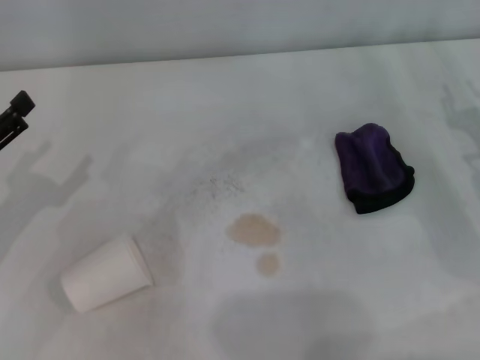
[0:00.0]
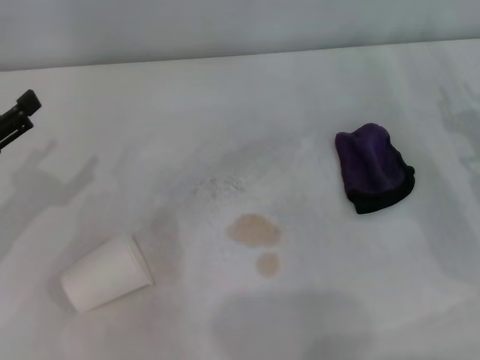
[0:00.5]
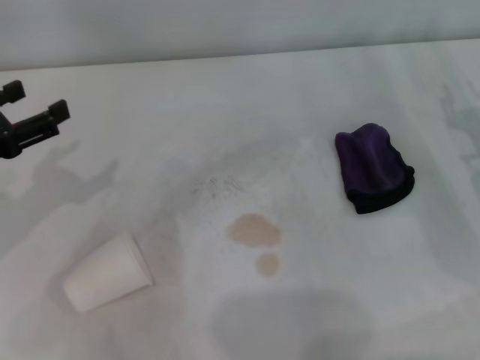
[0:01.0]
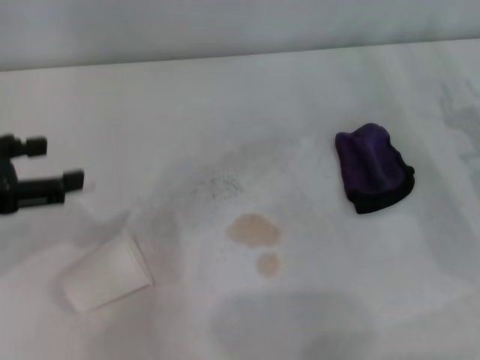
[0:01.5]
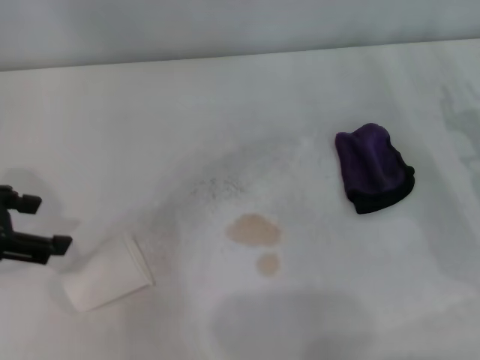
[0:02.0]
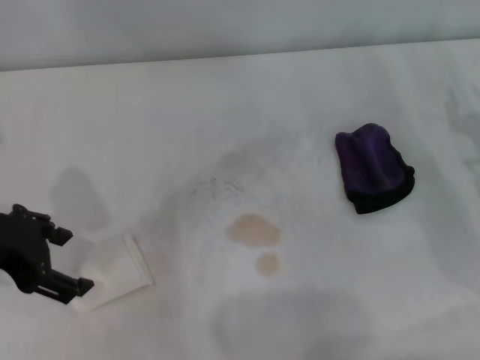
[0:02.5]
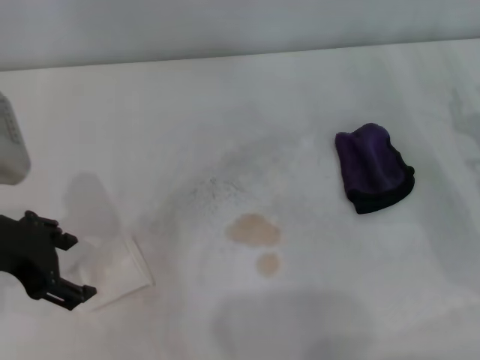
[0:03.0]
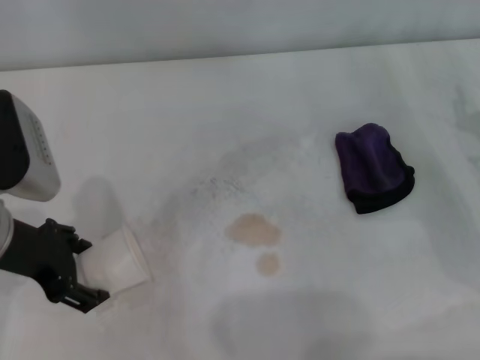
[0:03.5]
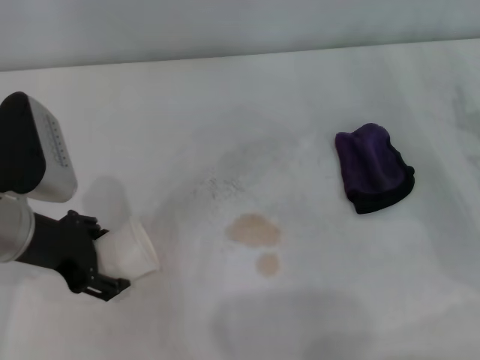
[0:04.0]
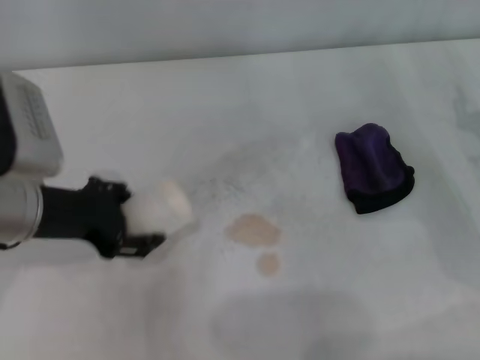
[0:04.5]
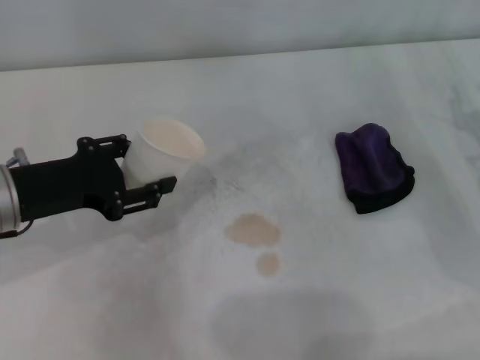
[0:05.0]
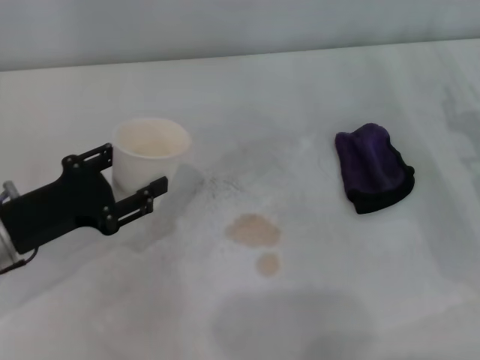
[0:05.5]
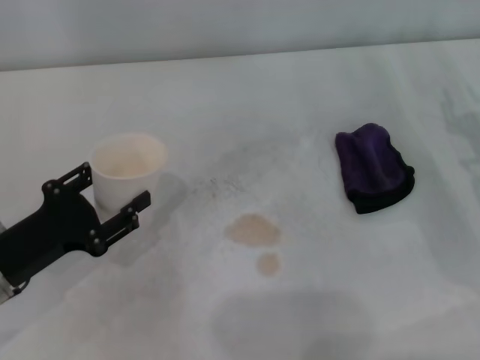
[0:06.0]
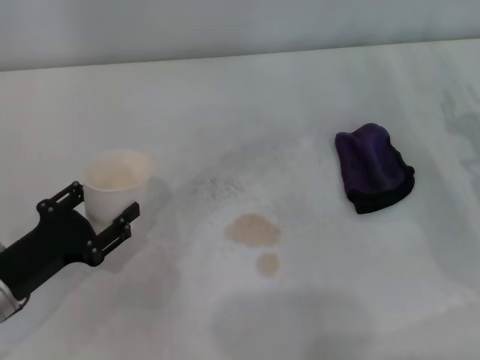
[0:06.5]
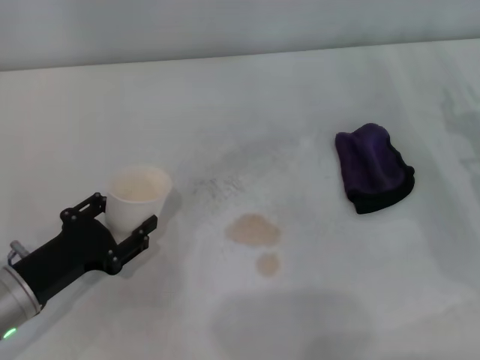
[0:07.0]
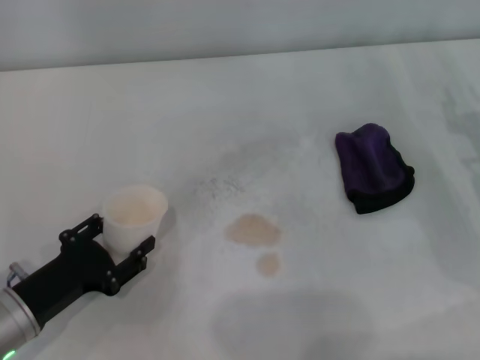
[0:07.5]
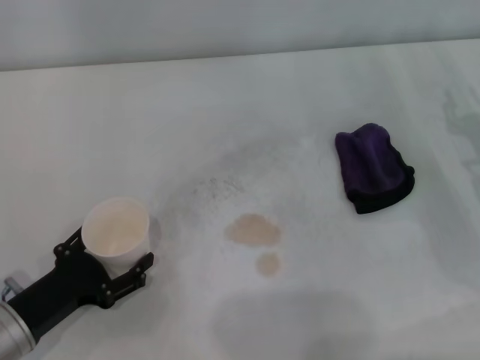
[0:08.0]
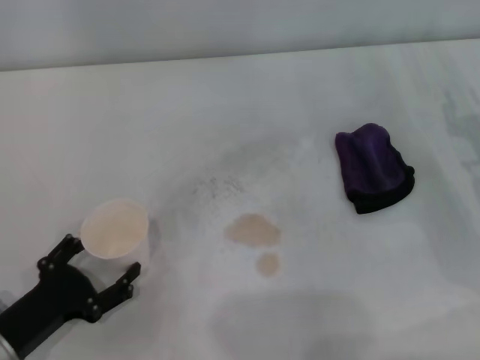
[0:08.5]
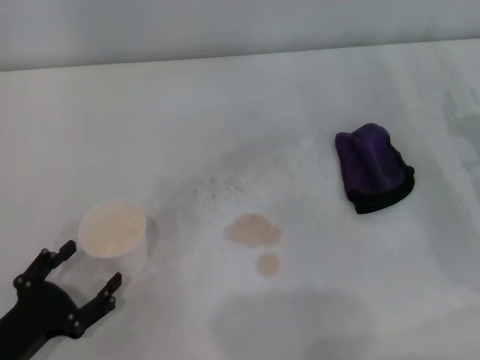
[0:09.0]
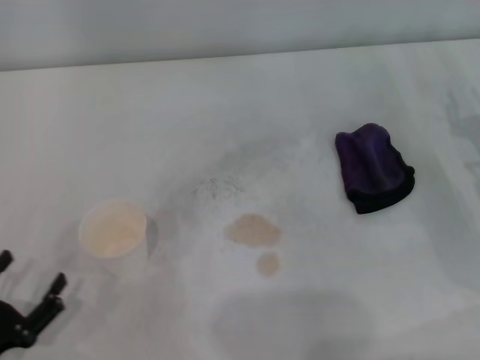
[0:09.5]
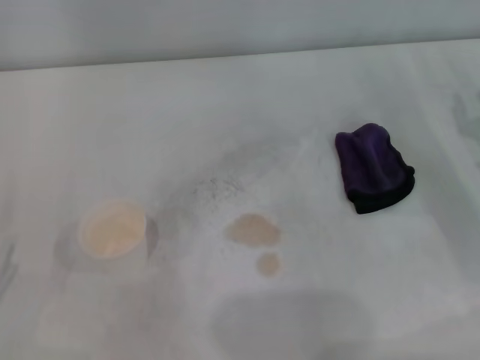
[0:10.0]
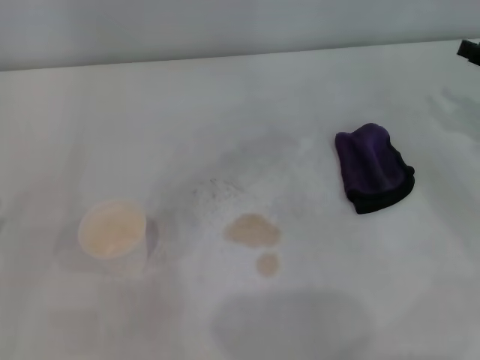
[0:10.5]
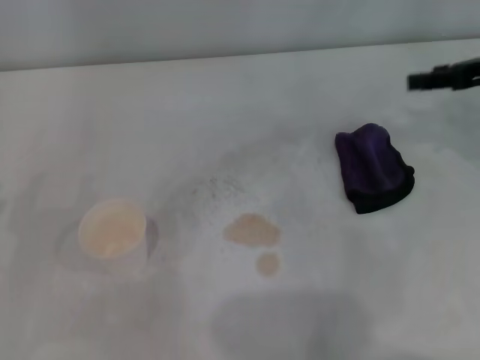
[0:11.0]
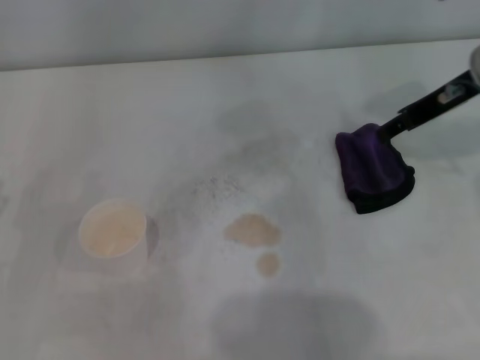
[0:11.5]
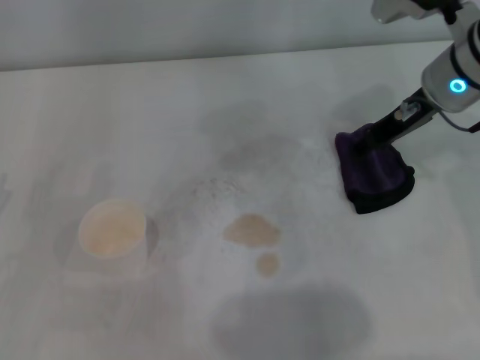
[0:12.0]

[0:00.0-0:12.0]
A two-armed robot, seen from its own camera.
Step, 0:00.0 to 0:04.0: Grasp the paper cup with the left gripper.
Step, 0:04.5 to 0:07.5: Stand the paper cup upright with the left gripper.
0:00.0 to 0:02.0: The left gripper shifts some 10 cm upward.
0:02.0 to 0:04.0: The left gripper travels to the right and downward by approximately 10 cm.
0:04.0 to 0:06.0: The left gripper is displaced downward and backward by approximately 10 cm, and closes up.
0:06.0 to 0:08.0: The left gripper goes some 5 cm downward, and opens.
0:08.0 to 0:10.0: The left gripper heads to the left and backward, covering roughly 10 cm, and opens its fingers.
0:10.0 to 0:12.0: The right gripper travels to the left, upward and forward by some 20 cm, while the left gripper shifts some 5 cm forward.

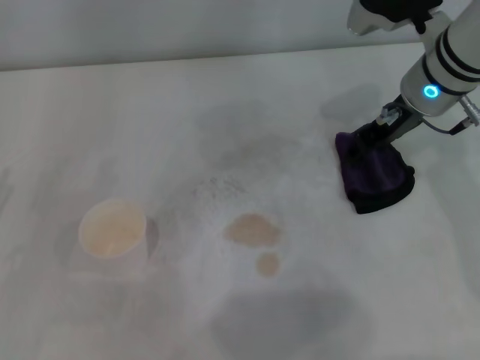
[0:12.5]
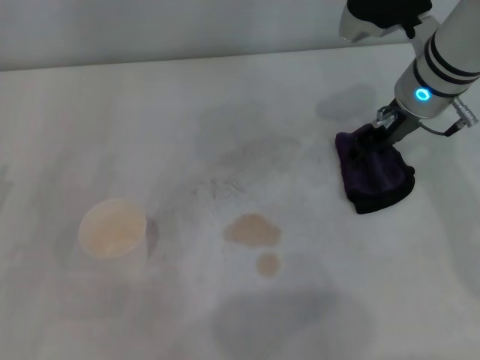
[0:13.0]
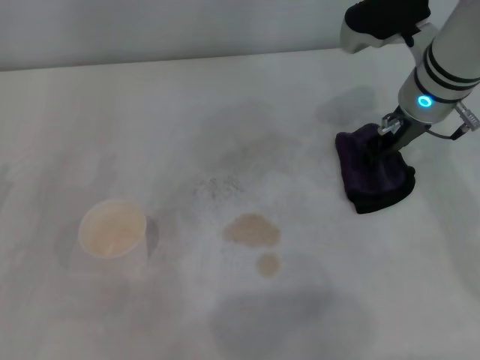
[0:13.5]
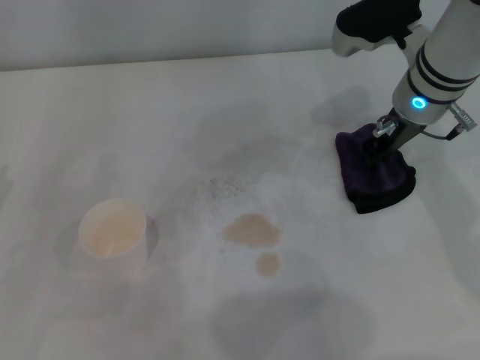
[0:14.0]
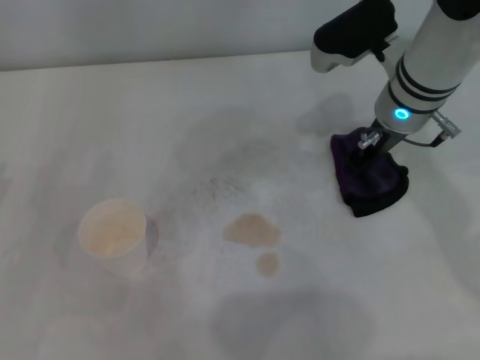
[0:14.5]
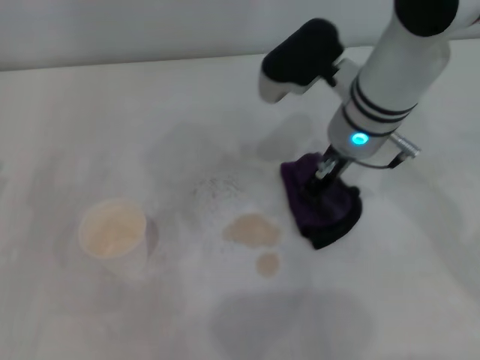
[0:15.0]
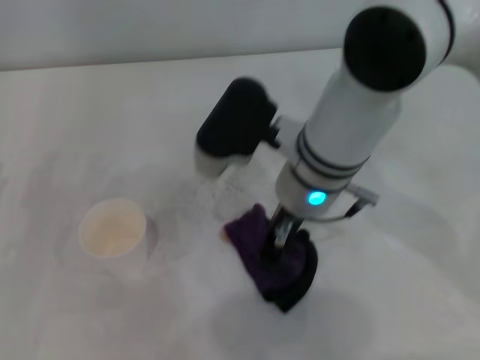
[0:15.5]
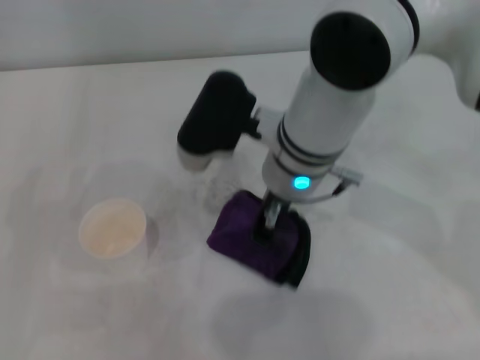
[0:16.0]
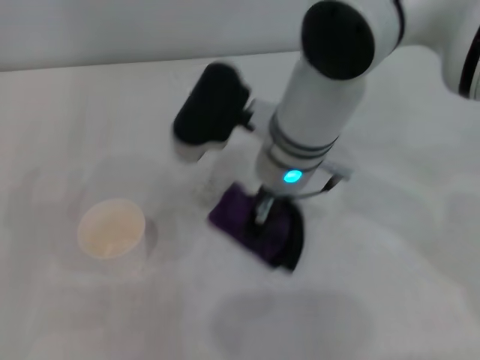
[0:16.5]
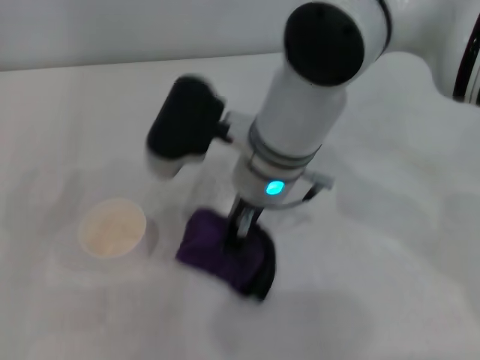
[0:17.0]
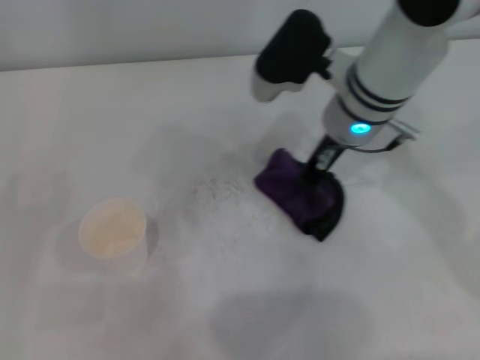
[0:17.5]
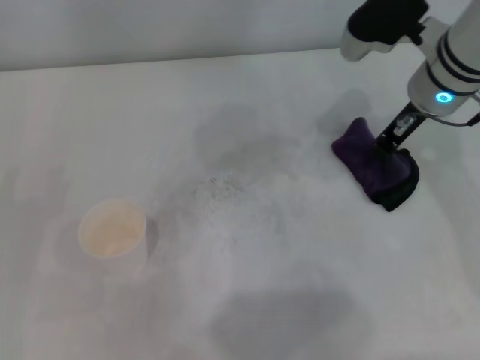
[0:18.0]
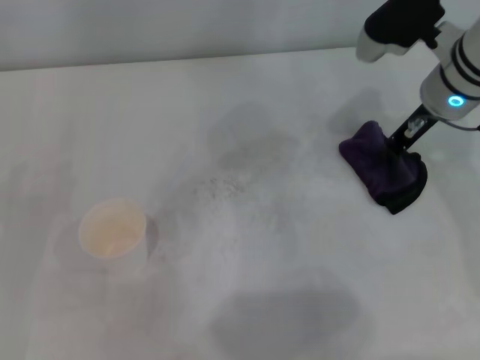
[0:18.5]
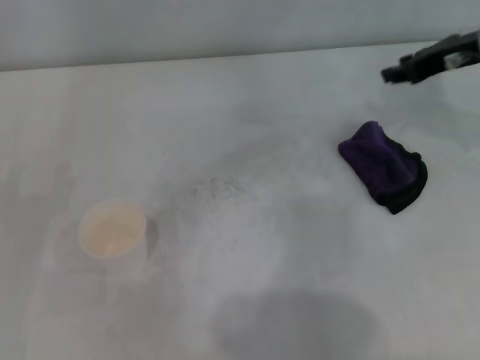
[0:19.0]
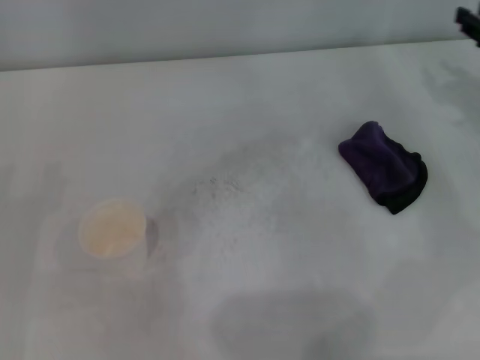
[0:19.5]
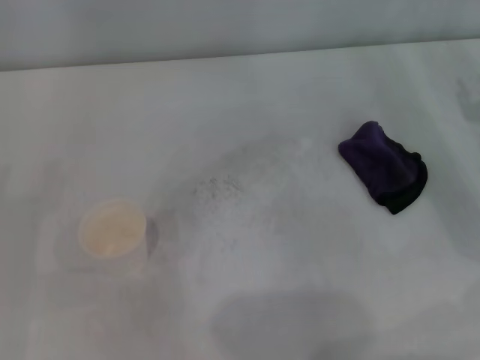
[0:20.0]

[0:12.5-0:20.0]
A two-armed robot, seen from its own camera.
Step, 0:14.5 to 0:17.5: Wipe the stains off the table with the right gripper.
0:12.5 to 0:14.5: The right gripper closes.
0:14.5 to 0:16.5: The right gripper travels to the left and backward by approximately 15 cm.
0:16.5 to 0:18.0: The right gripper moves to the right, roughly 15 cm.
0:18.0 to 0:20.0: The right gripper moves to the right, backward and downward, approximately 20 cm, and opens.

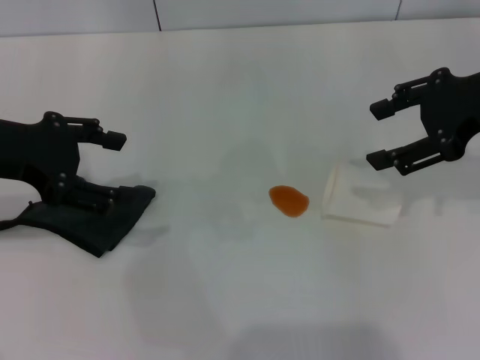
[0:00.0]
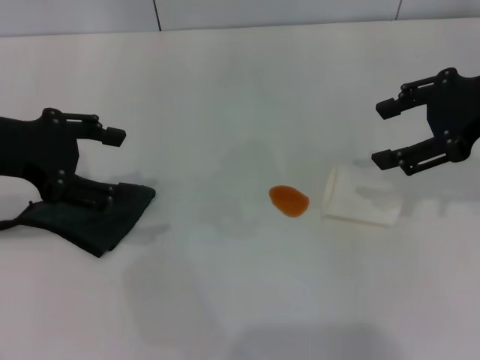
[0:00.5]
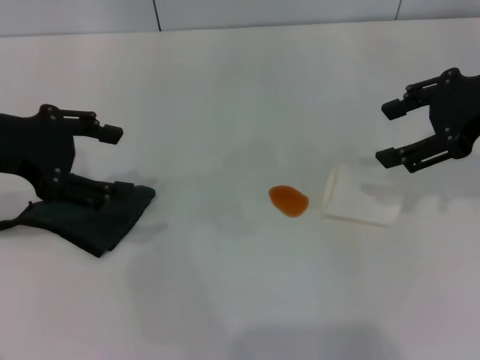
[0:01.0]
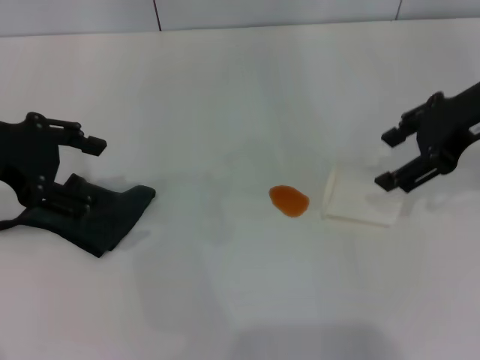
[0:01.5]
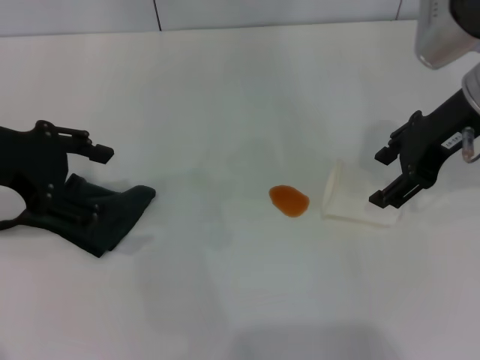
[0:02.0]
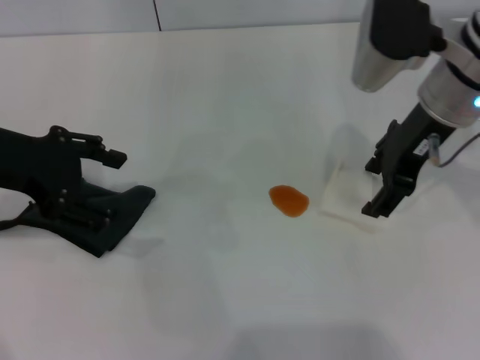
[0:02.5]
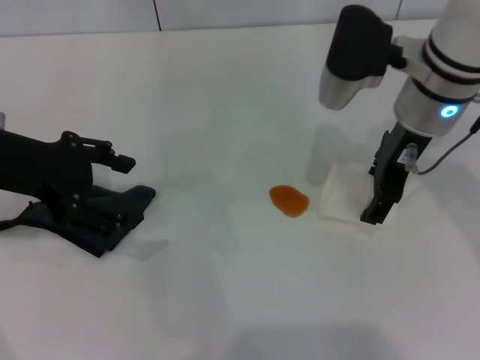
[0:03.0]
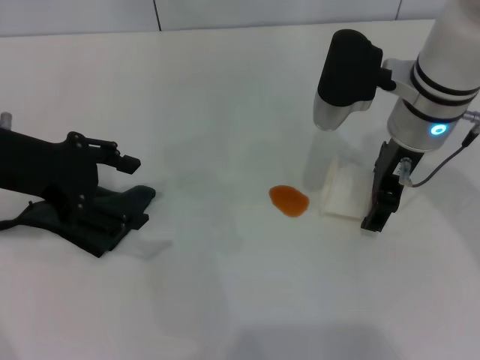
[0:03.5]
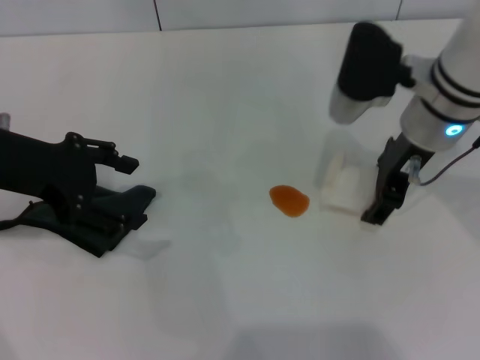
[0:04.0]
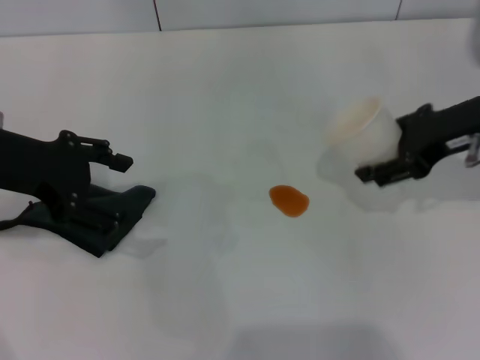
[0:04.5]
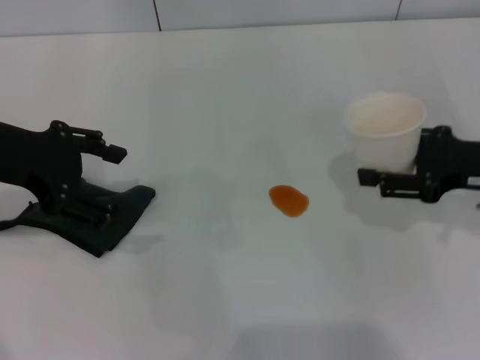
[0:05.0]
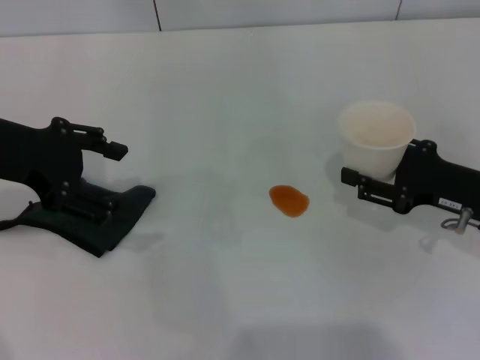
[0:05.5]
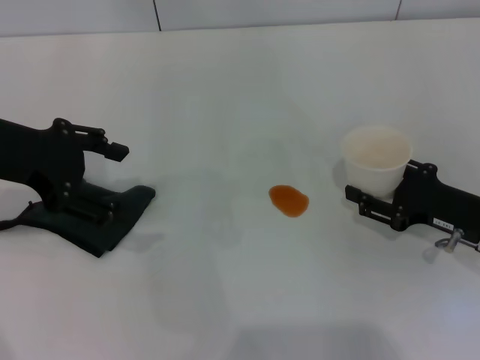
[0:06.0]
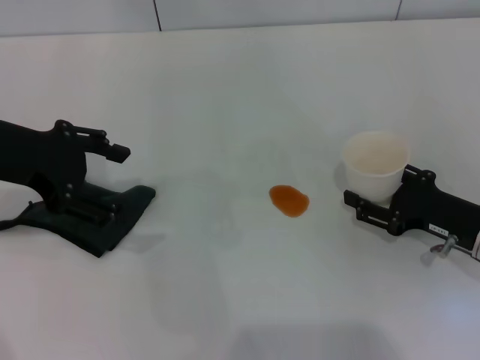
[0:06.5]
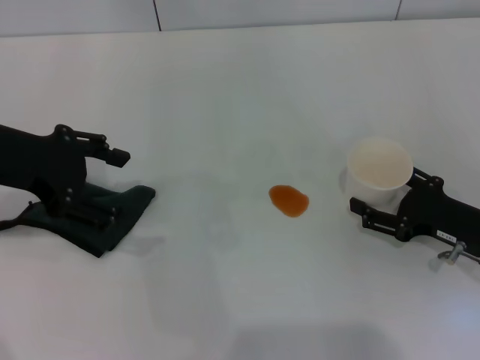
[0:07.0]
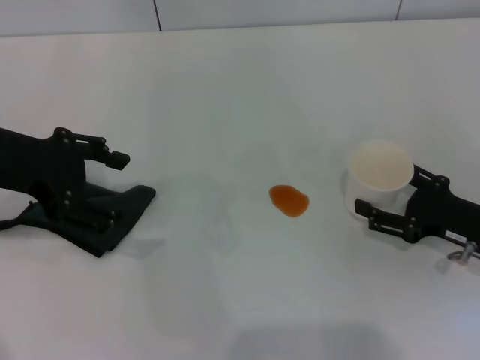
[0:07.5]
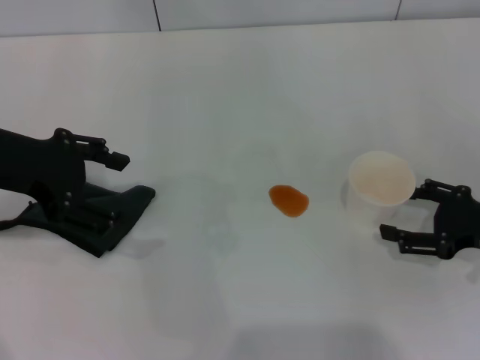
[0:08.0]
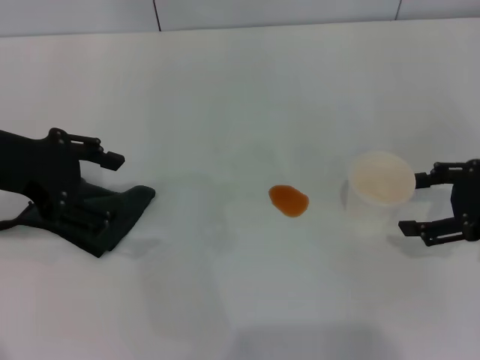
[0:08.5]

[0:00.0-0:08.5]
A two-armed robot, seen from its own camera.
Step, 0:00.0 to 0:03.5: Grasp the paper cup with the right gripper.
Step, 0:04.0 to 0:08.0: Stand the paper cup upright with the right gripper.
0:00.0 to 0:02.0: The right gripper moves to the left, about 5 cm.
0:02.0 to 0:04.0: The right gripper goes some 5 cm to the left.
0:04.0 to 0:06.5: The right gripper is displaced downward, to the right and backward by some 20 cm.
0:06.5 to 0:08.5: The right gripper travels upward by roughly 10 cm, and opens its fingers.
